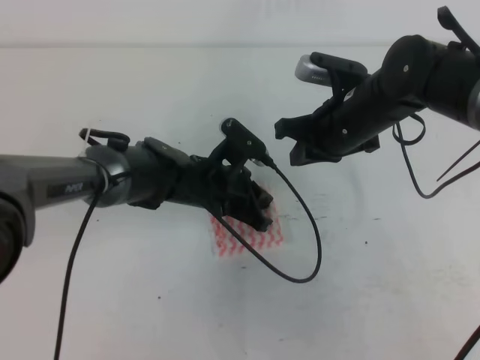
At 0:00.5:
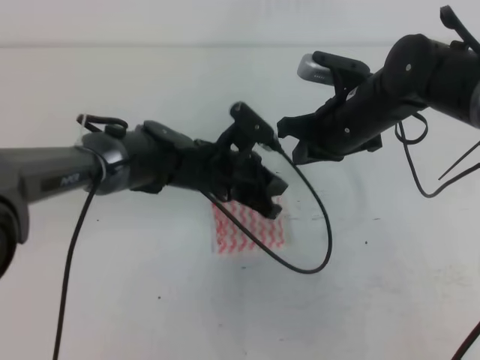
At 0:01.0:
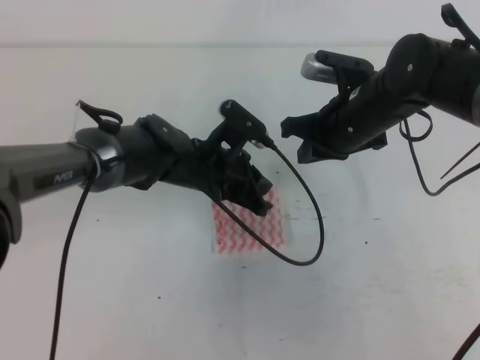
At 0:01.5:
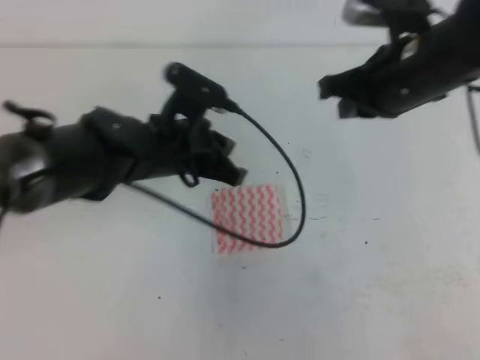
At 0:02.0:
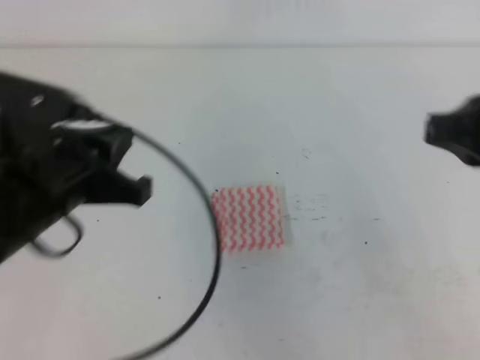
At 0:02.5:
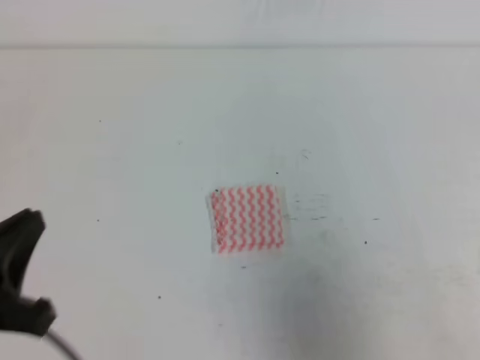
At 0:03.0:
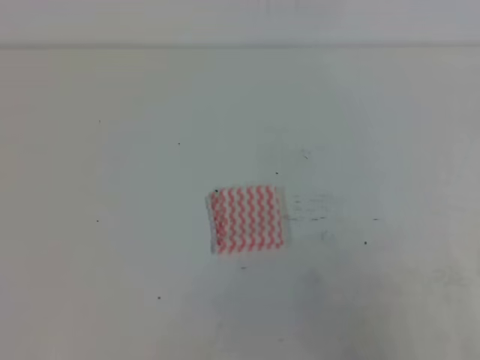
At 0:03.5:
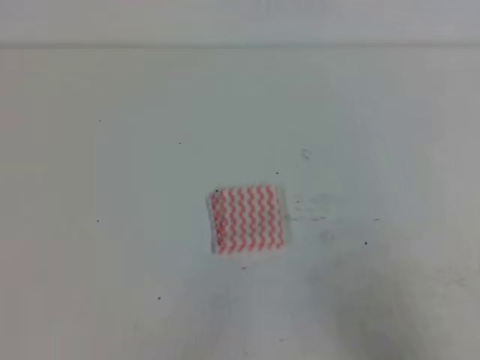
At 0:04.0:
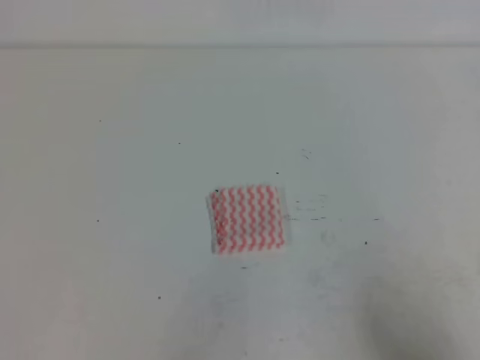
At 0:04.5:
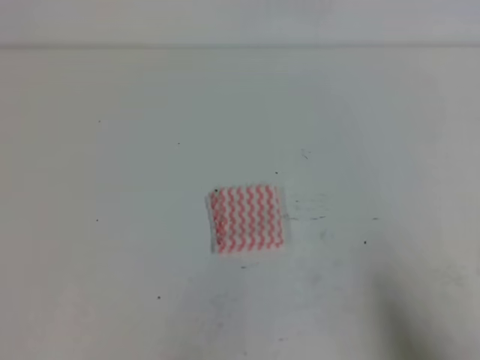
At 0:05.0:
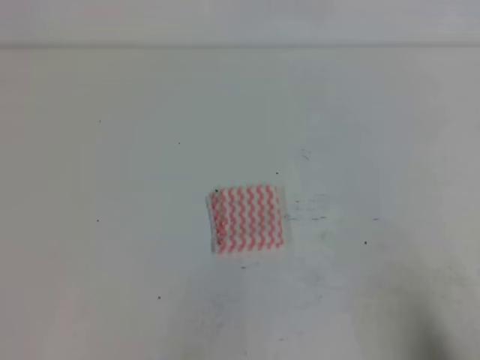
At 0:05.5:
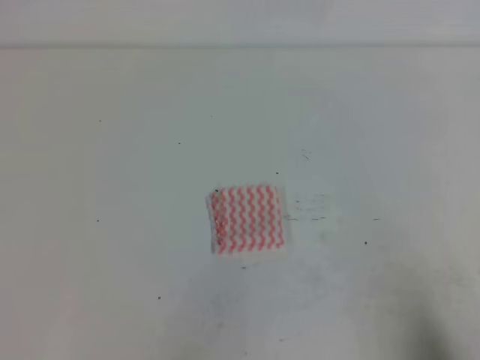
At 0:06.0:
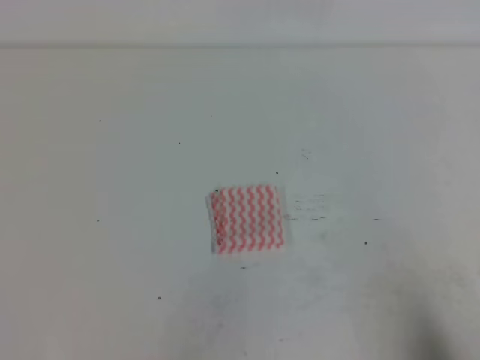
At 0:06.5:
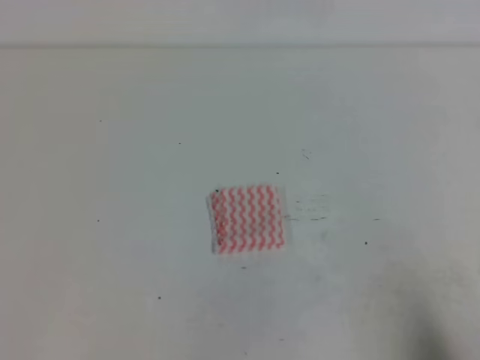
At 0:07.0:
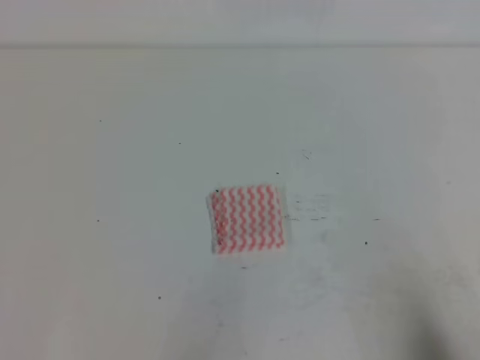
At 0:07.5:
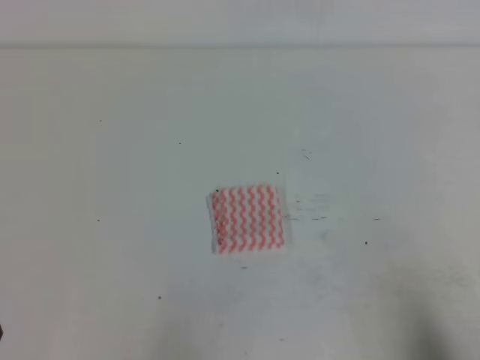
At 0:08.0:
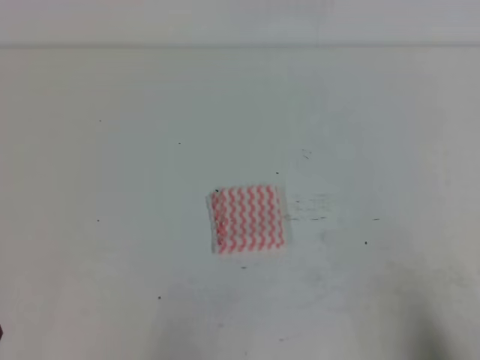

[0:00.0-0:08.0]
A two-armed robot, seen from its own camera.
0:00.0 to 0:02.0: The right gripper is displaced backward, upward and to the right by roughly 25 cm. The left gripper travels upward, backward and to the left by roughly 25 cm.
0:02.0 to 0:04.0: The right gripper goes roughly 20 cm downward and backward, while the left gripper moves backward, downward and to the left, about 20 cm.
